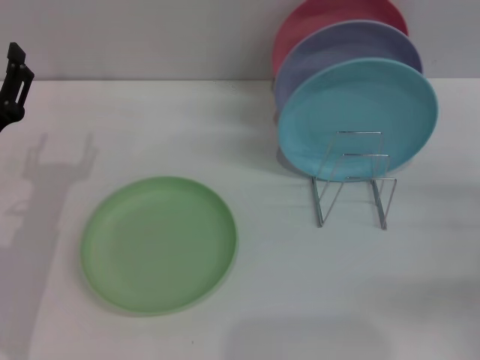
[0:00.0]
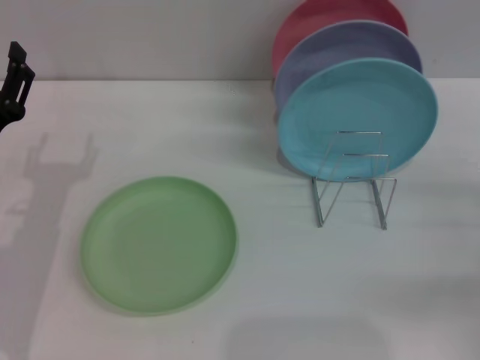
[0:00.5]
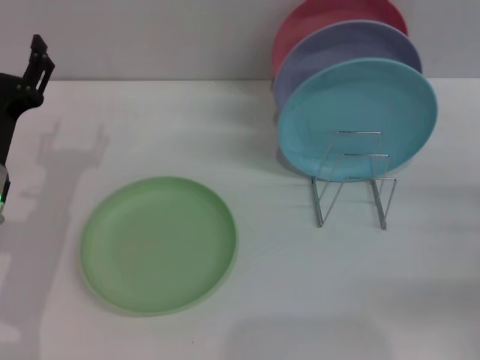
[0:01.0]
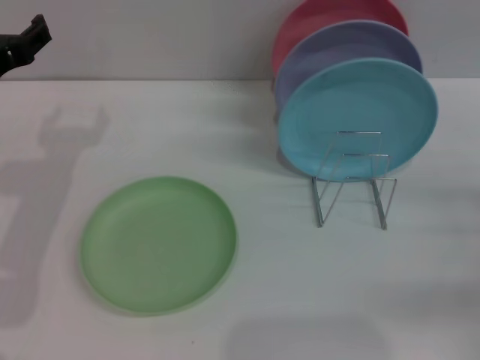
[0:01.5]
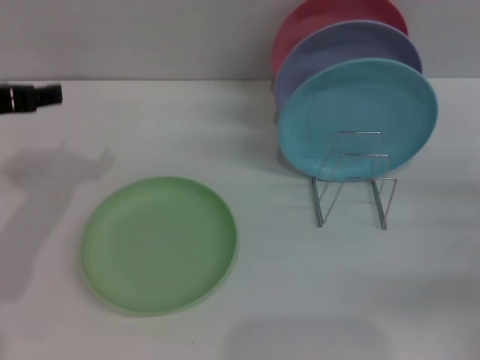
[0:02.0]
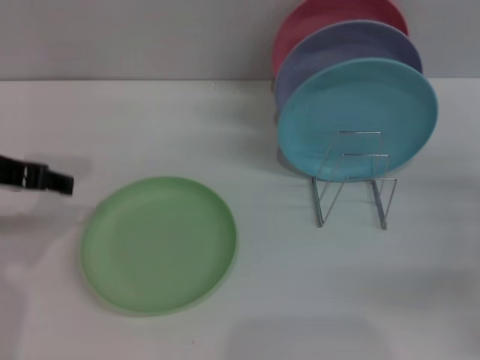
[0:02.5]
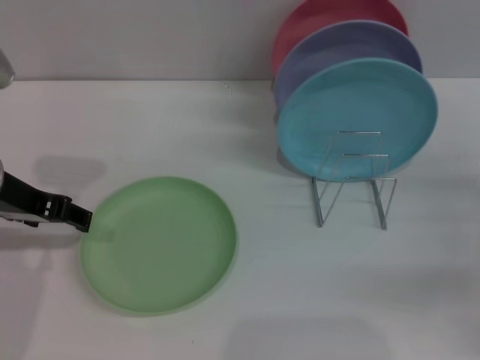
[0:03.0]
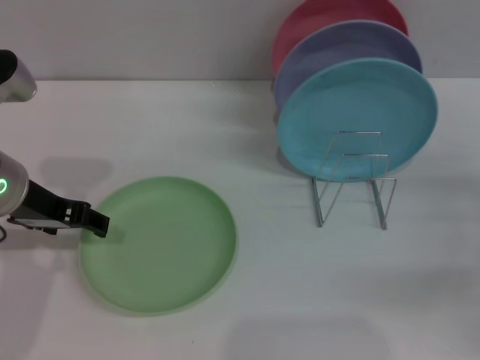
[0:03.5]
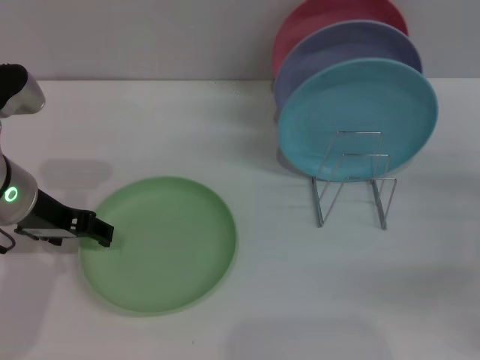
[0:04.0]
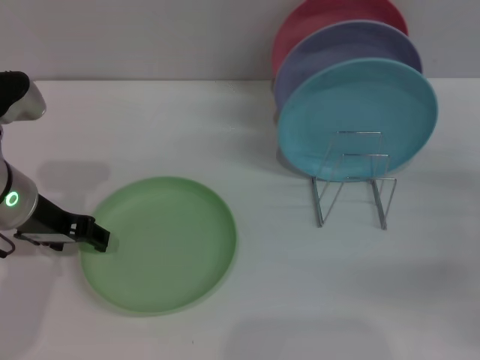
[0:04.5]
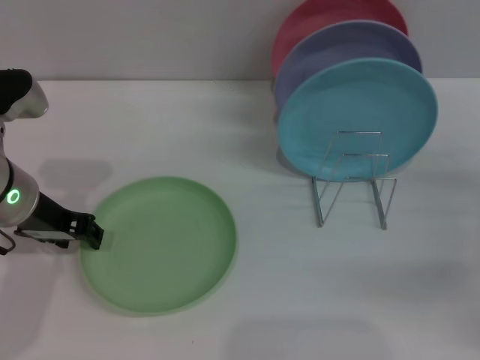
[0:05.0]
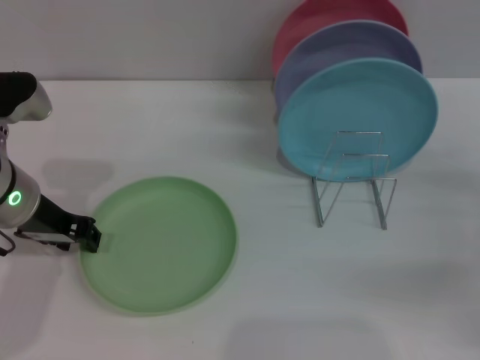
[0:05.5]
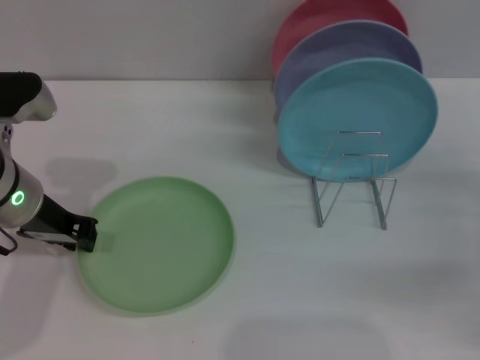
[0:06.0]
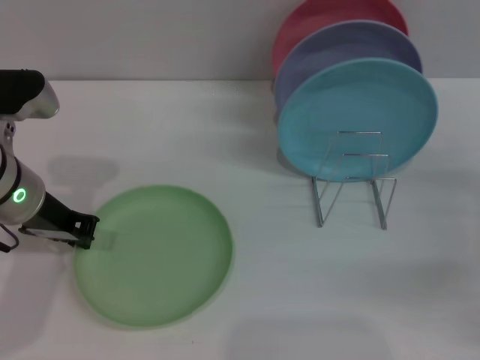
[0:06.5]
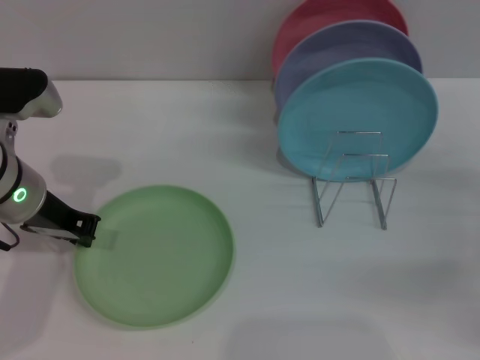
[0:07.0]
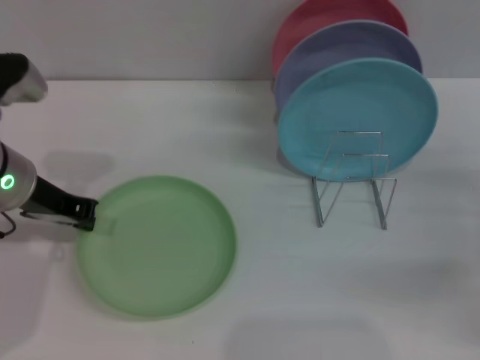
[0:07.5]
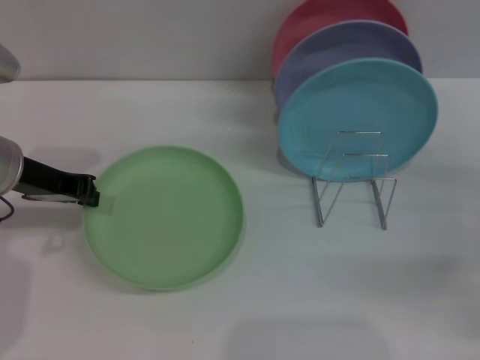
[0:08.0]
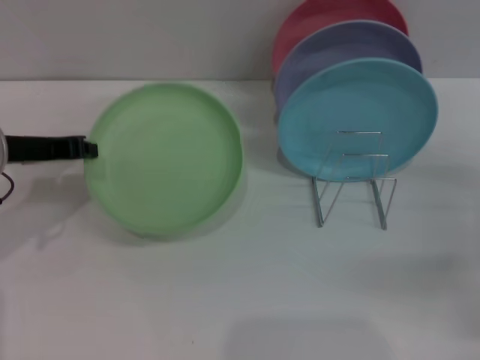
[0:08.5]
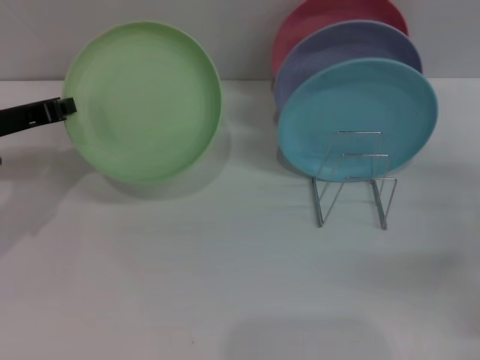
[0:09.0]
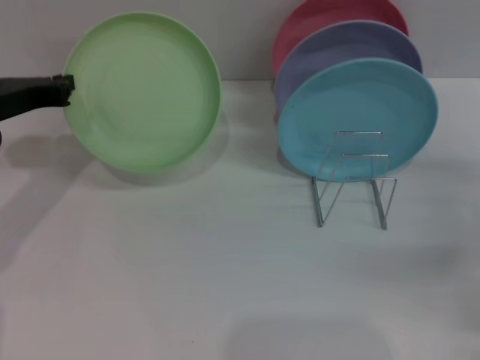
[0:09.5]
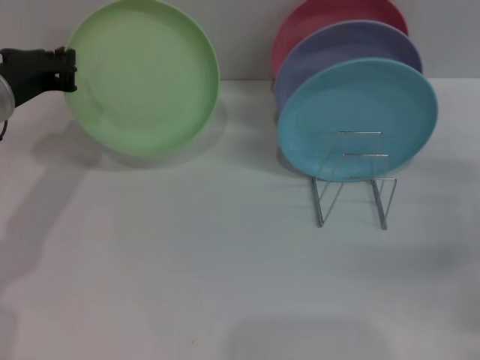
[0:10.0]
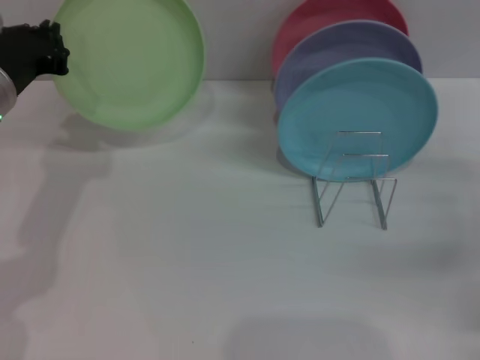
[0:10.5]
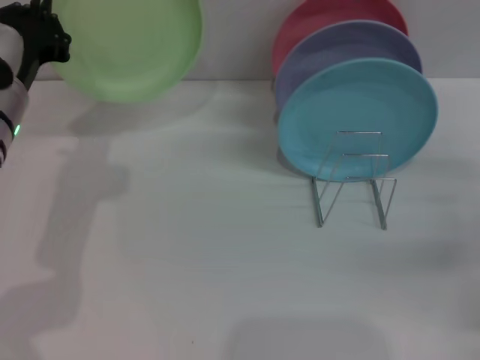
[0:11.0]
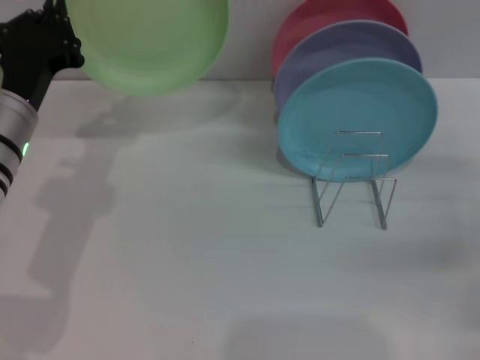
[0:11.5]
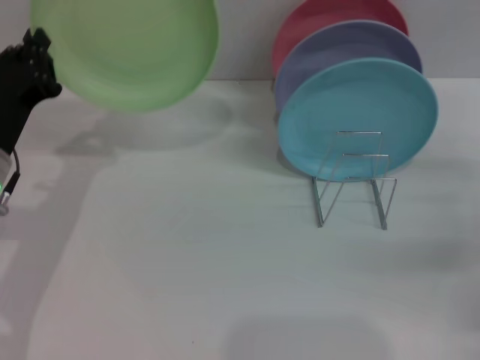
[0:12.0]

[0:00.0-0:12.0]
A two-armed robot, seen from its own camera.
Task of the whole recording: Grip the plate with one hand, pass it to the other, then set it on the shelf.
Step, 0.0 to 8.0 s: Pick up the plate with the left gripper.
0.0 to 2.0 s: The left gripper heads upward, covering roughly 15 cm.
2.0 to 4.0 s: The left gripper goes about 5 cm downward.
4.0 to 6.0 s: The left gripper closes up.
6.0 to 8.0 s: The left gripper closes up.
10.0 to 12.0 s: The left gripper heads backward and downward, covering roughly 10 cm.

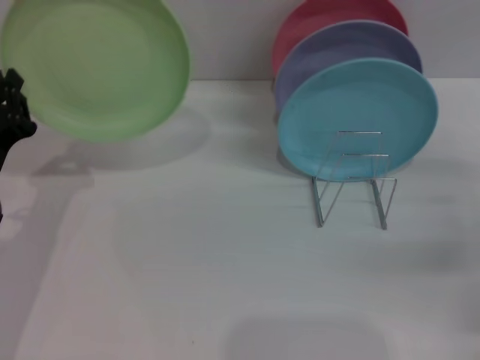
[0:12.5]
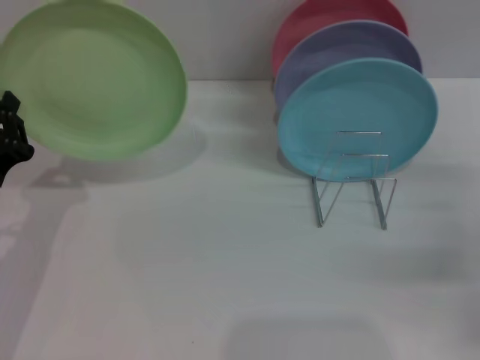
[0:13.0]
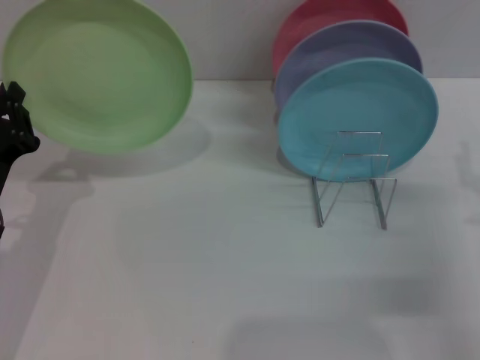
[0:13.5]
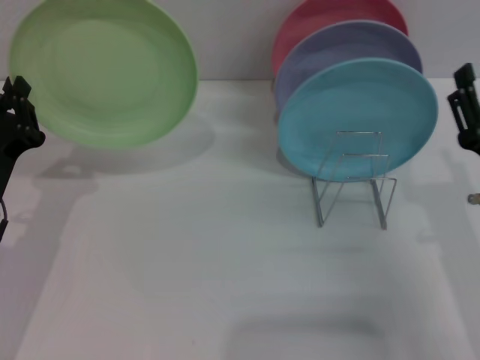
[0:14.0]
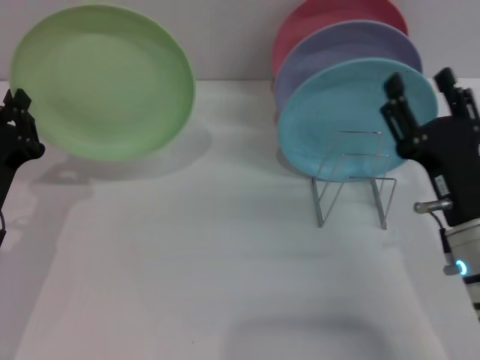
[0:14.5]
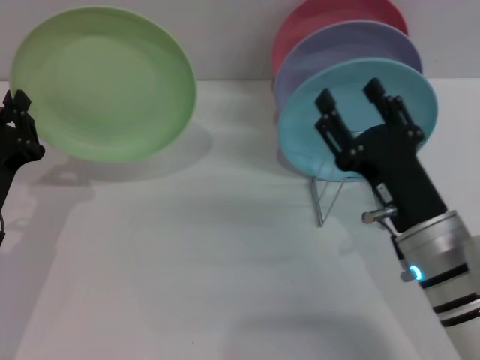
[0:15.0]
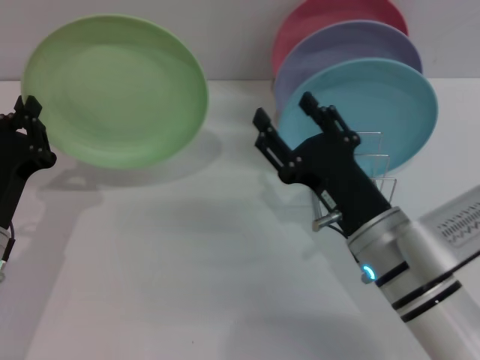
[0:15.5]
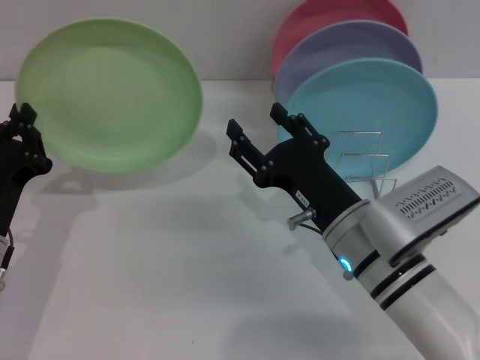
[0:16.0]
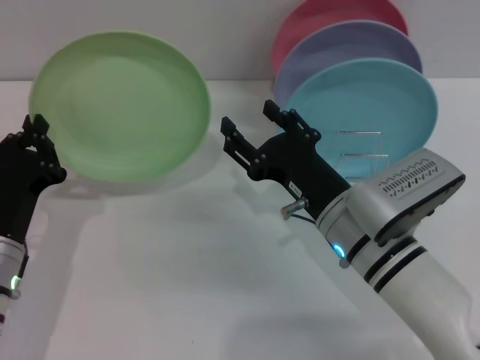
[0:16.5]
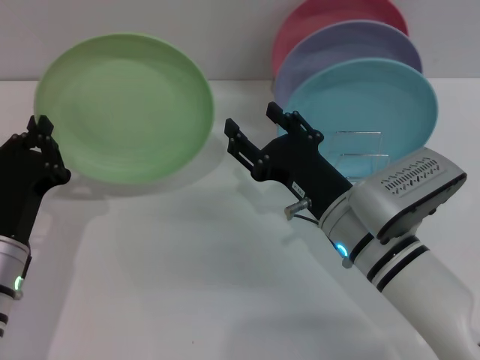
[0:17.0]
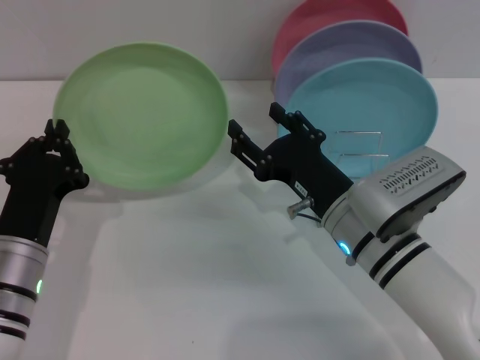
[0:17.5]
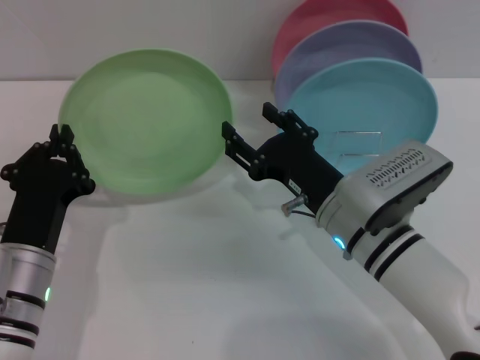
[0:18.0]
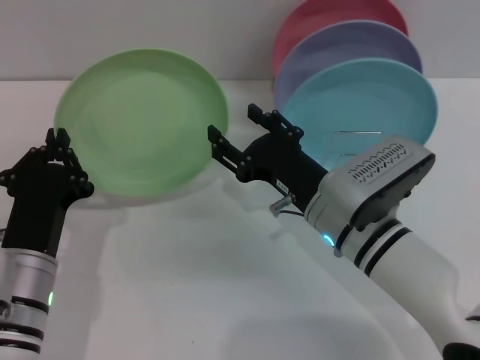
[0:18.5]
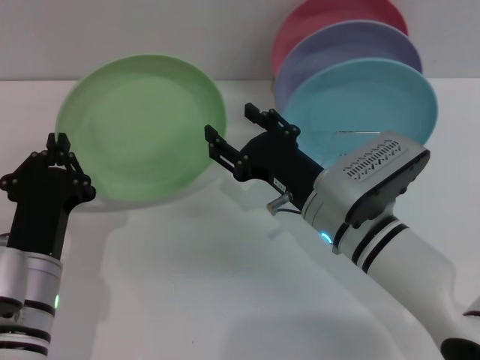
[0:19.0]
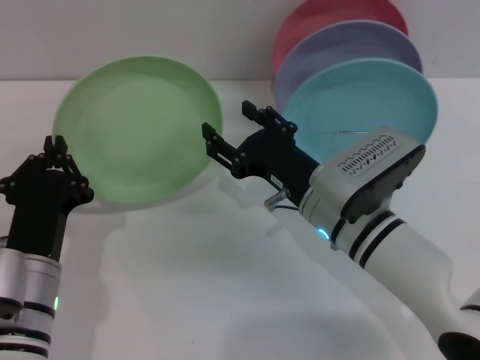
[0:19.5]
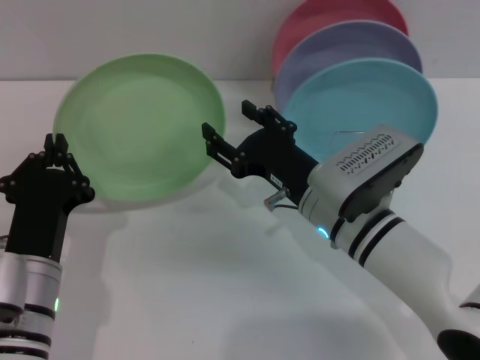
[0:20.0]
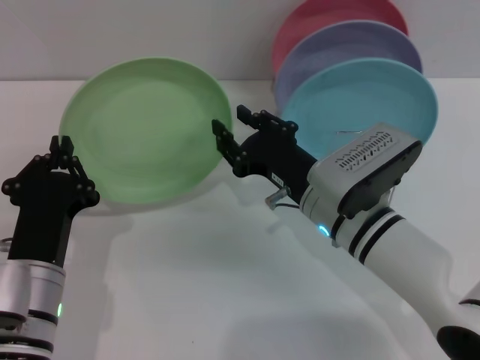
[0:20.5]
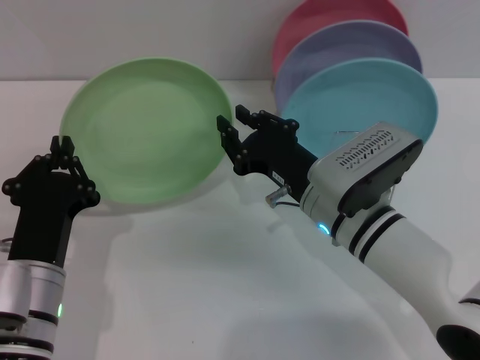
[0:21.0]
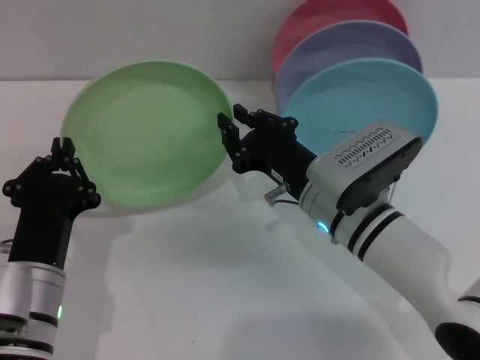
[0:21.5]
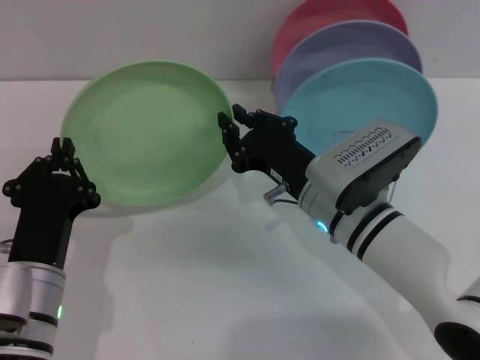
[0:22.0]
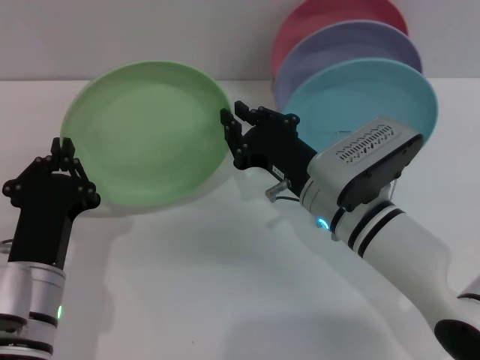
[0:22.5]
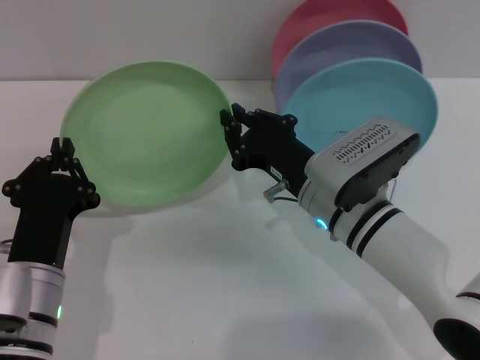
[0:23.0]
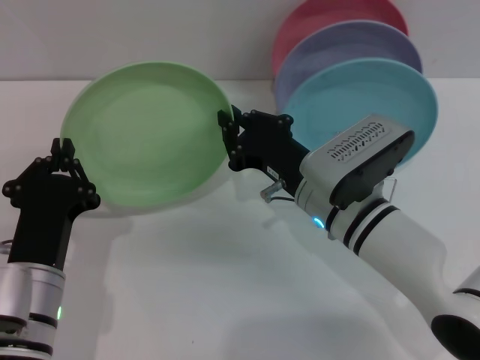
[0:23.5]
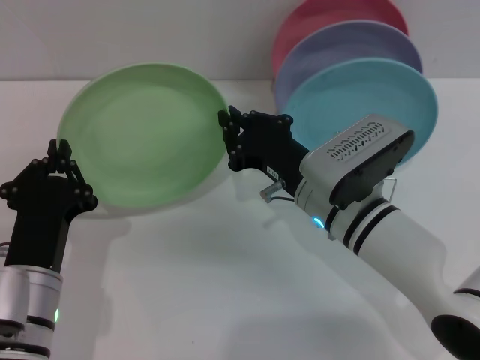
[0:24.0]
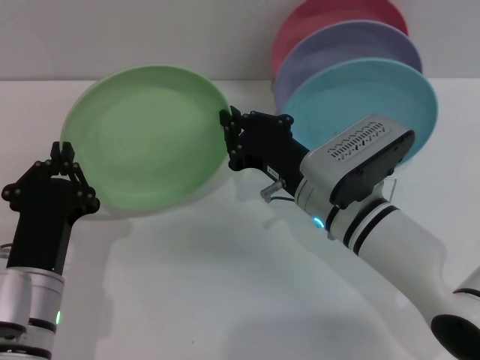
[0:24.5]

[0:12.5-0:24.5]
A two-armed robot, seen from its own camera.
Task of the whole recording: Grip the plate with one hand, pass it to the other, then set it on the shelf.
12.5 to 14.5 s: The right gripper moves to the left, about 15 cm.
14.5 to 16.5 s: The right gripper is displaced to the left by approximately 10 cm.
16.5 to 20.5 s: The grippers stay close to where they were, moving slightly.
20.5 to 22.5 s: The right gripper closes its fingers.
22.5 to 24.5 s: Both grippers stay put.

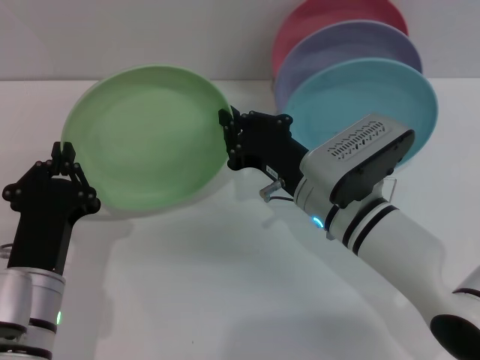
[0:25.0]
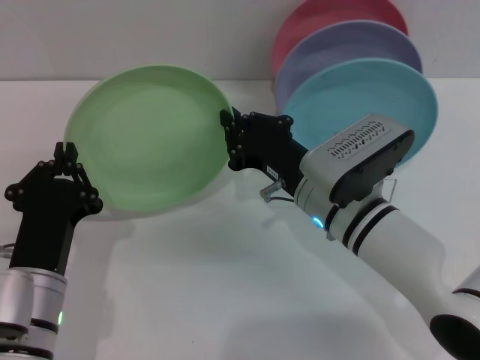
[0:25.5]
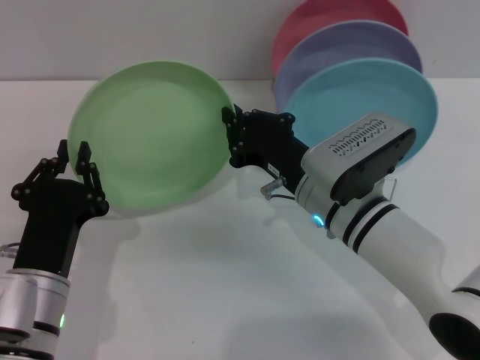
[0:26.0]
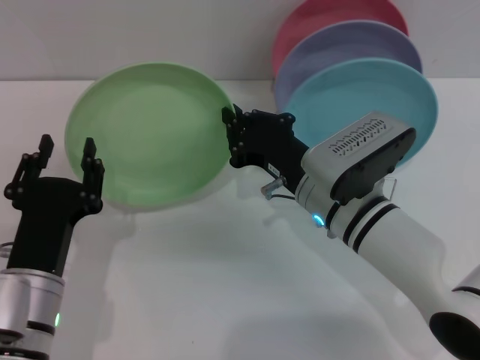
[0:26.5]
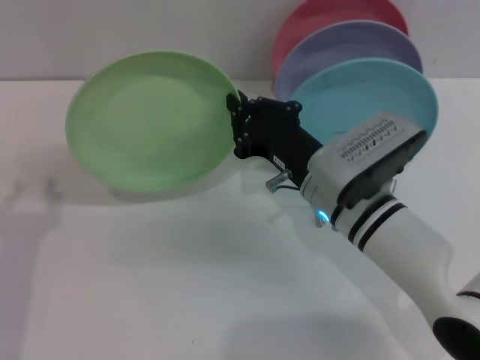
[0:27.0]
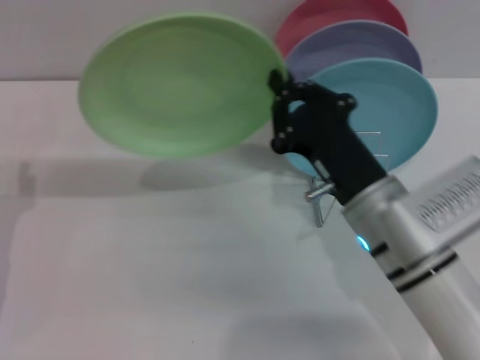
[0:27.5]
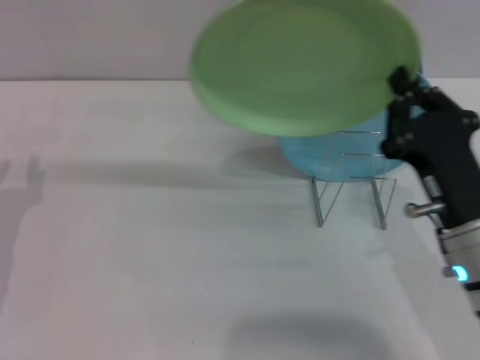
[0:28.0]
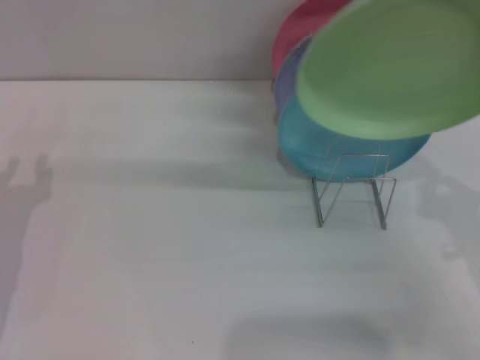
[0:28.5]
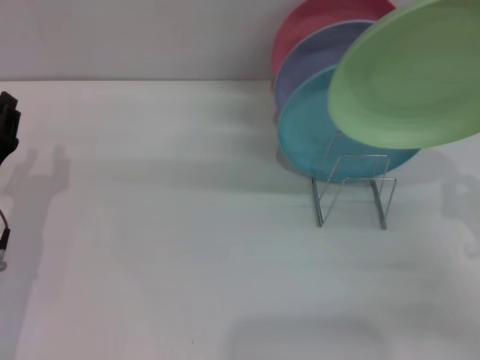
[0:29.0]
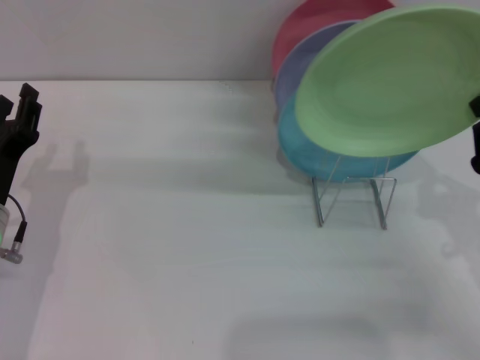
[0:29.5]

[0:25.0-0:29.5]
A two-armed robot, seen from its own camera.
Task of the whole recording: Grip the plate with one hand, pass it to the other, then set it on the shelf.
Step, 25.0 to 27.0 s: Pass the plate from the left gripper to the right gripper.
25.0 to 27.0 s: The left gripper moves to the left, some 10 cm, and opens its fingers.
27.0 to 29.5 s: The left gripper shifts some 5 cm forward. The right gripper moves to the right and backward, some 20 cm.
